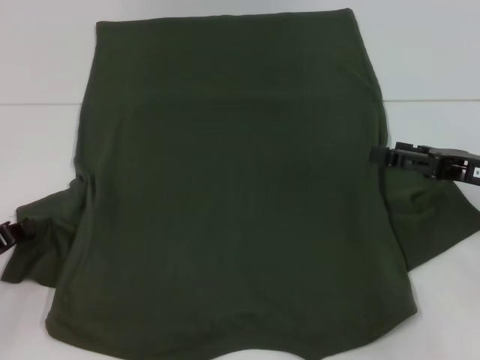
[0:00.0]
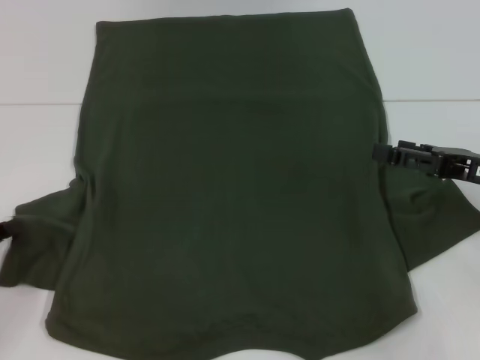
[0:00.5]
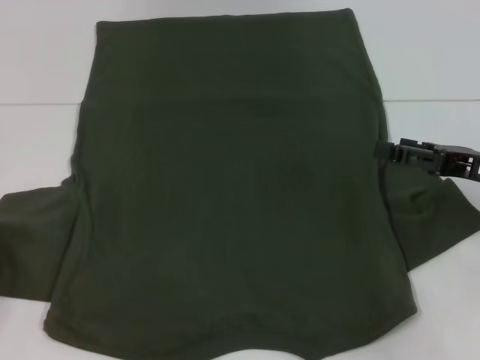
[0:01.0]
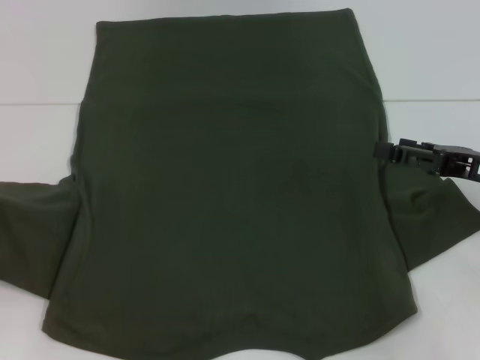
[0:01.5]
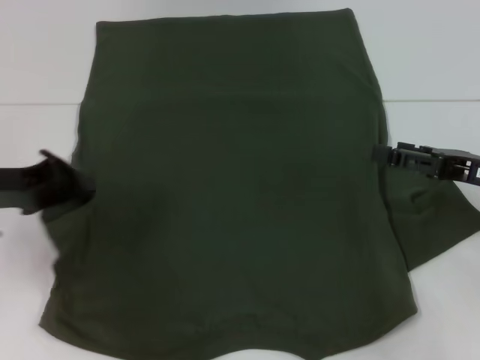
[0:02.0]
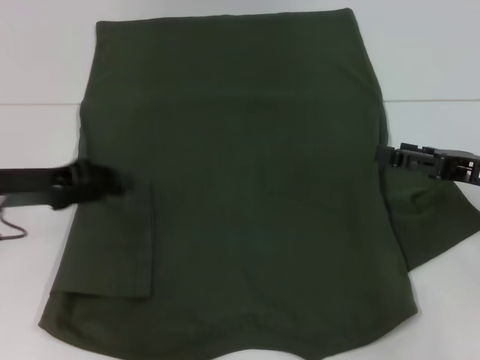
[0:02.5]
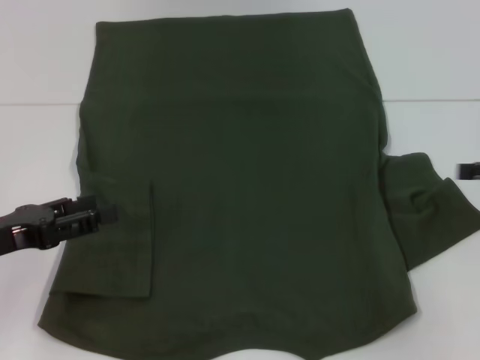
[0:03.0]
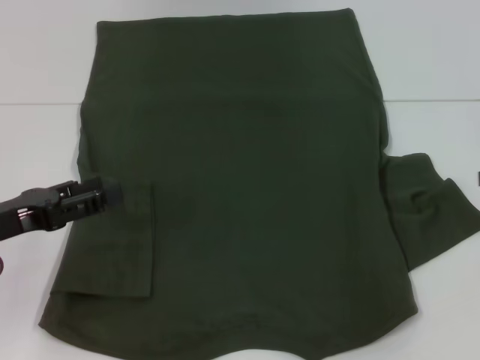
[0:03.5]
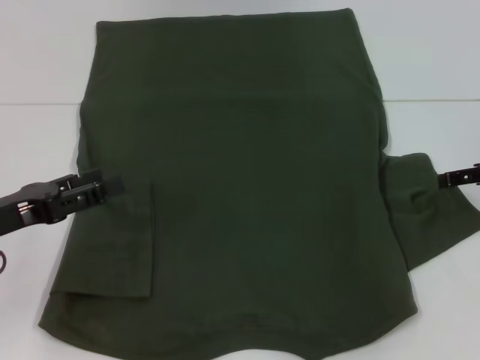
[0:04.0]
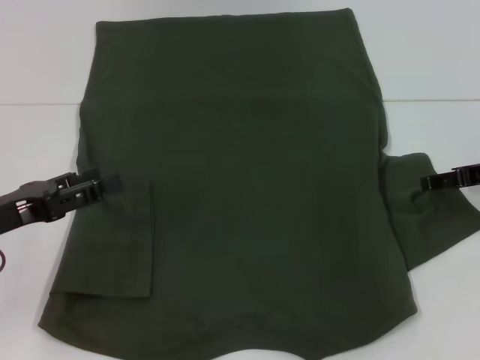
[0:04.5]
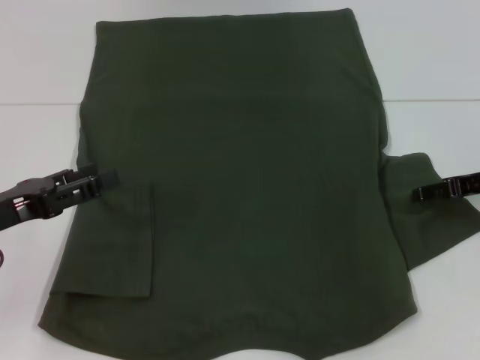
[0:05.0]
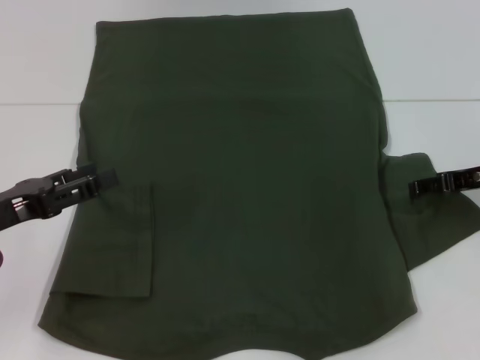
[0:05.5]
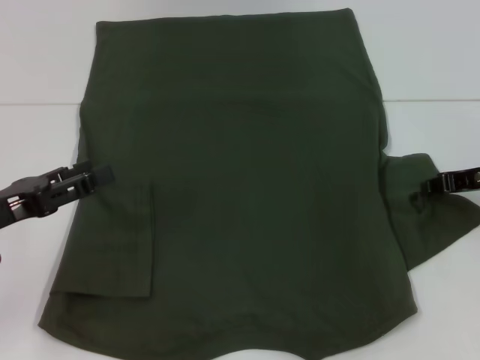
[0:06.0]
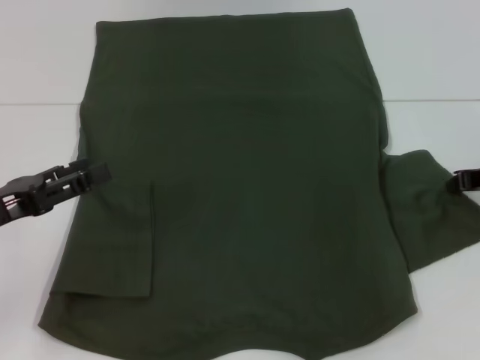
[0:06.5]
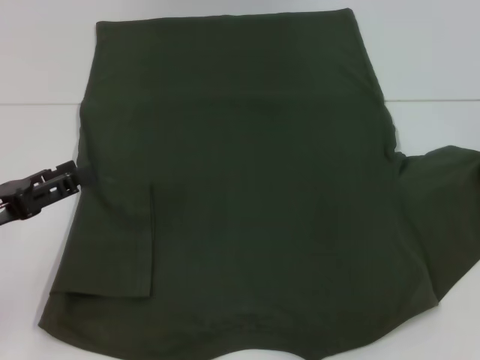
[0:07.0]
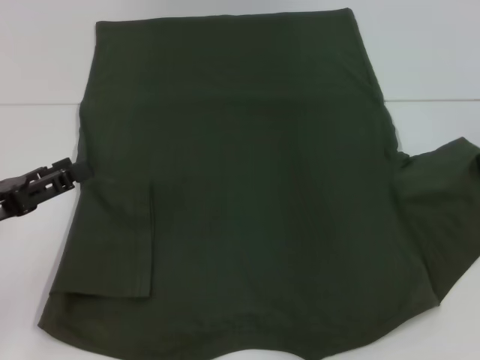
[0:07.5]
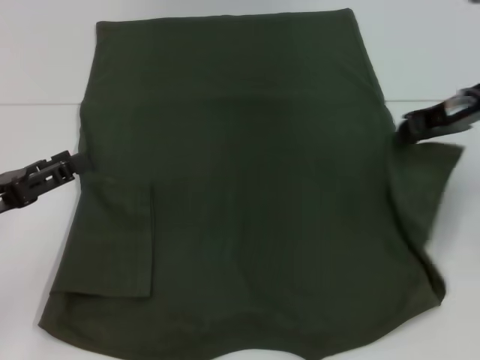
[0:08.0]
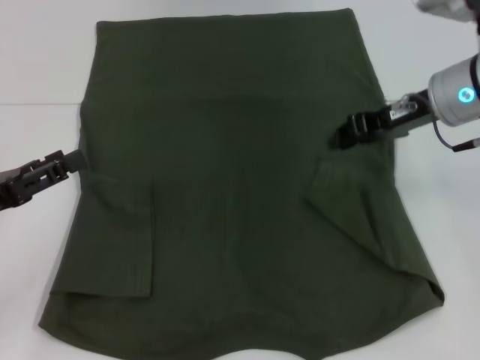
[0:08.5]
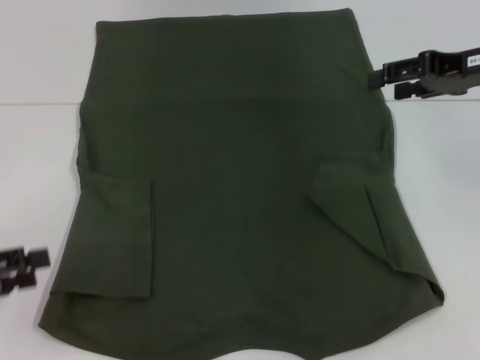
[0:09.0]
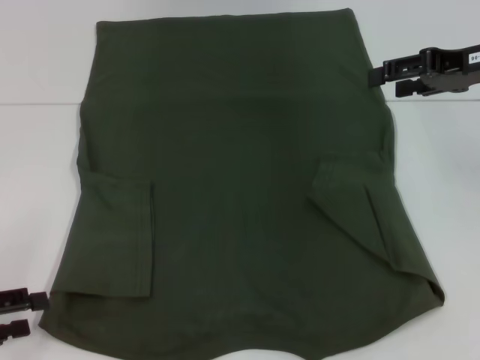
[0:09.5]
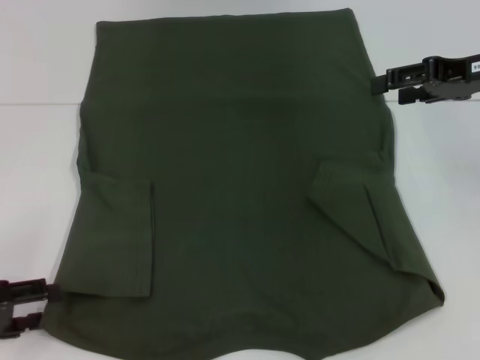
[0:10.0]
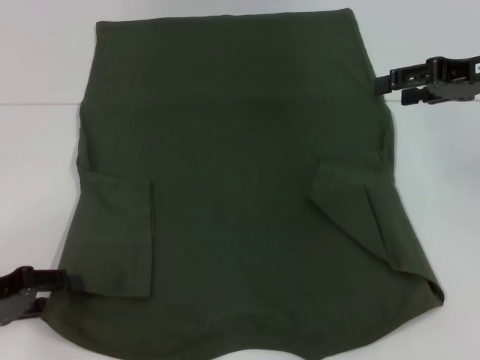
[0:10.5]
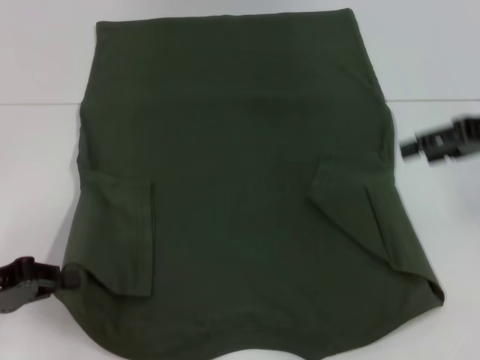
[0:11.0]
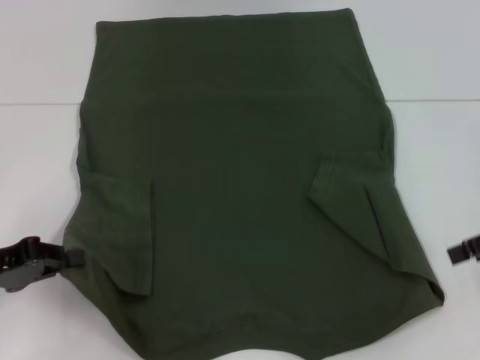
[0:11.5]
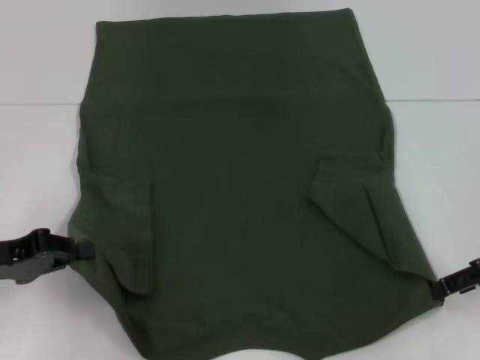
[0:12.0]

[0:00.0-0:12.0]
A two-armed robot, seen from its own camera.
Step, 0.0 to 2.0 s: Fold the bottom left sleeve with your left hand.
Step, 2.5 to 8.5 s: Fold the bottom right sleeve with your right hand.
Step, 9.0 to 11.0 s: Grab the bottom left corner with your left hand.
0.0 to 2.0 s: The left gripper heads upward and forward, covering about 10 cm.
2.0 to 4.0 s: The right gripper ends up roughly 5 cm from where it was. Meanwhile the left gripper heads backward, covering about 5 cm, and opens up.
4.0 to 6.0 s: The right gripper closes its fingers.
6.0 to 8.0 s: The right gripper is displaced upward and to the left by approximately 10 cm, and closes.
8.0 to 10.0 s: The right gripper opens its fingers, while the left gripper moves roughly 5 cm.
10.0 to 12.0 s: The right gripper is displaced downward and backward by about 15 cm. Meanwhile the left gripper changes place by roughly 5 cm, and closes.

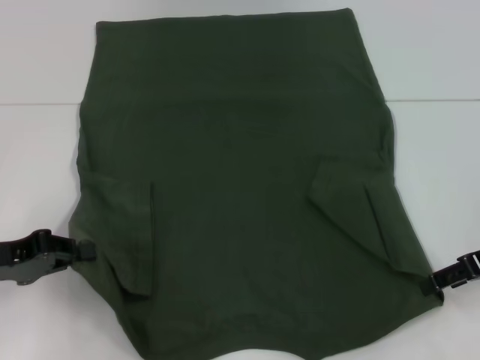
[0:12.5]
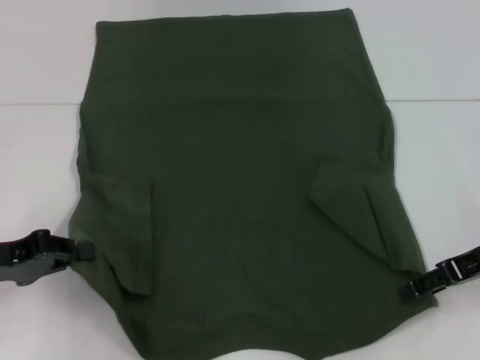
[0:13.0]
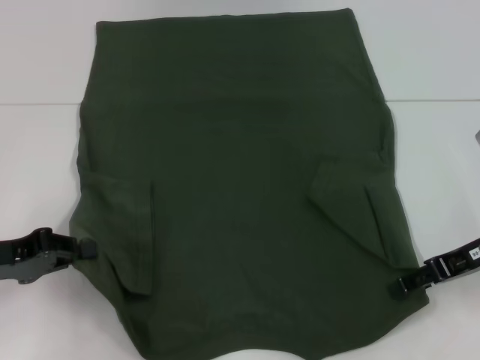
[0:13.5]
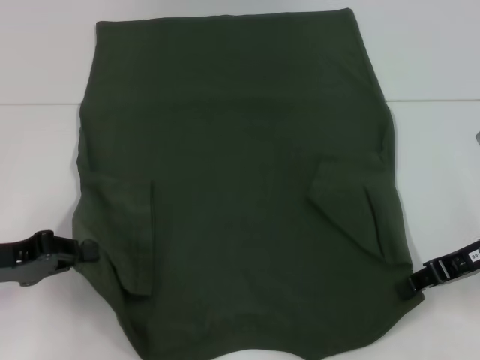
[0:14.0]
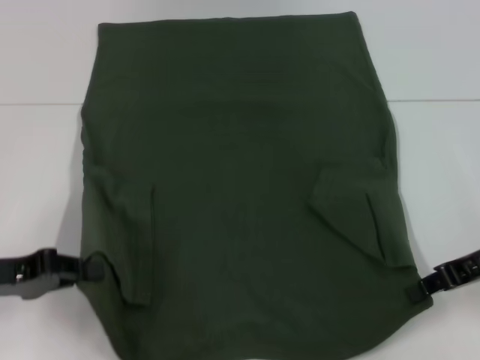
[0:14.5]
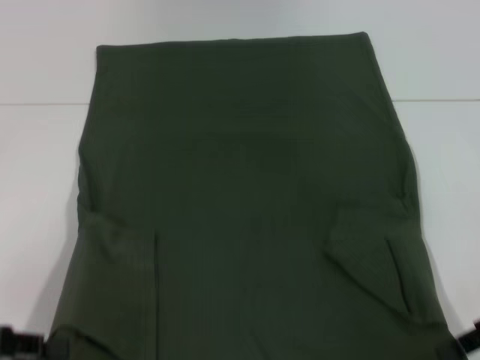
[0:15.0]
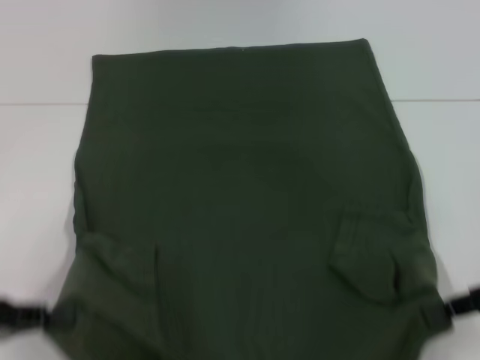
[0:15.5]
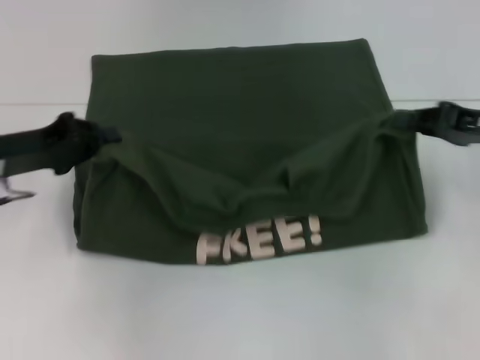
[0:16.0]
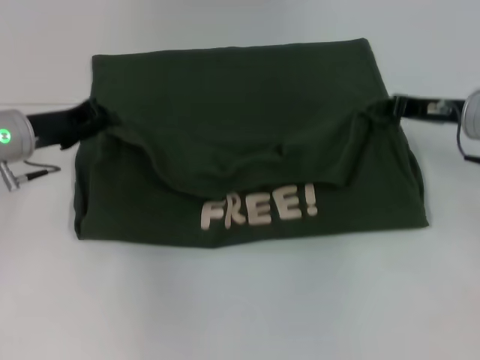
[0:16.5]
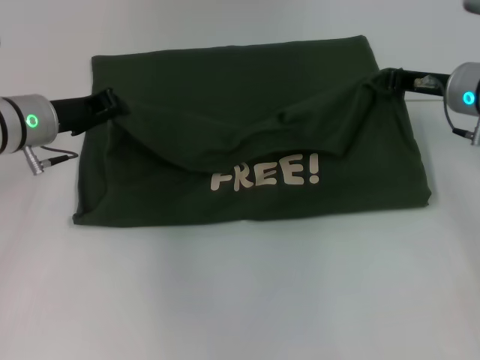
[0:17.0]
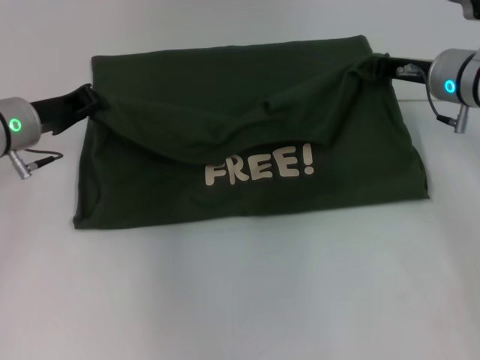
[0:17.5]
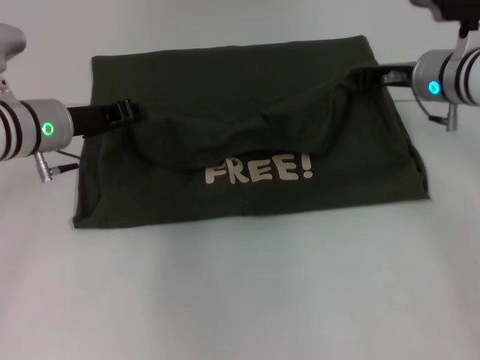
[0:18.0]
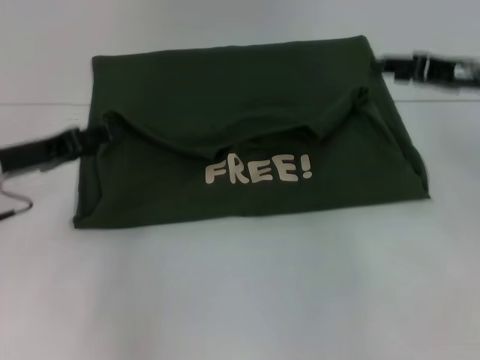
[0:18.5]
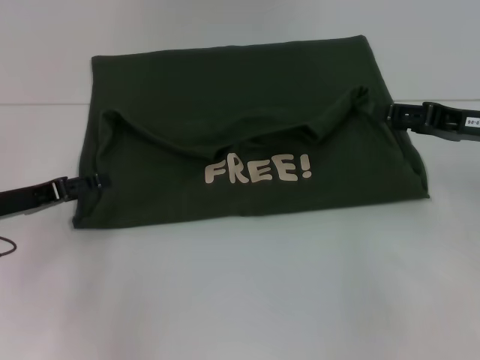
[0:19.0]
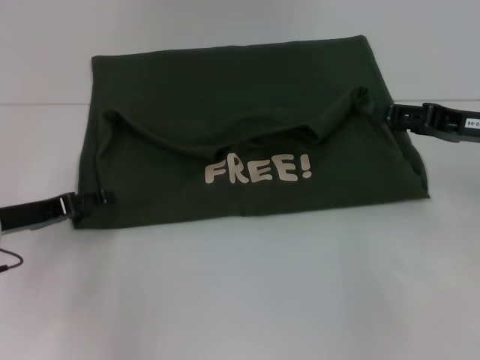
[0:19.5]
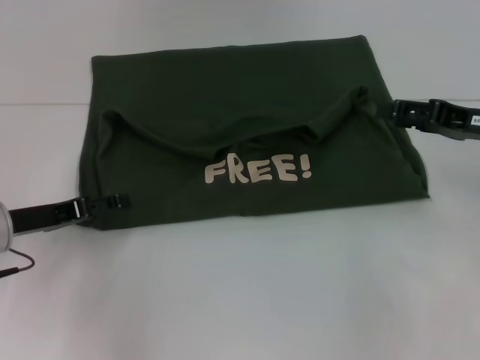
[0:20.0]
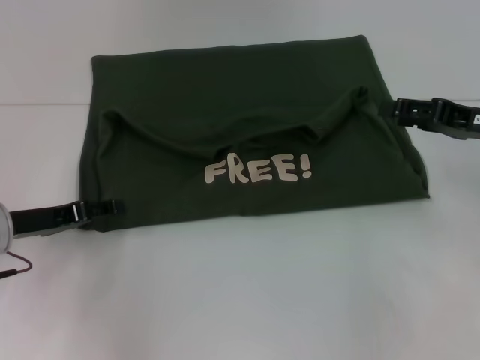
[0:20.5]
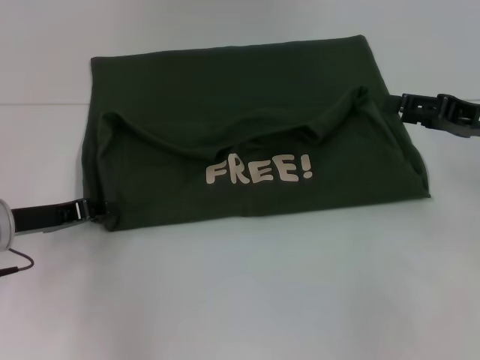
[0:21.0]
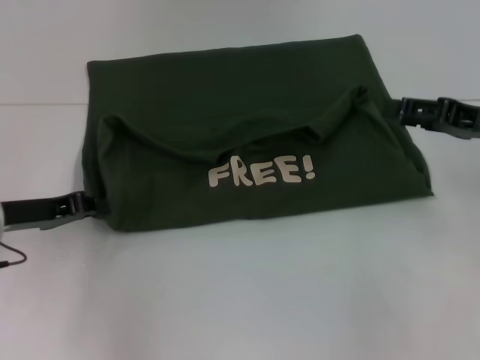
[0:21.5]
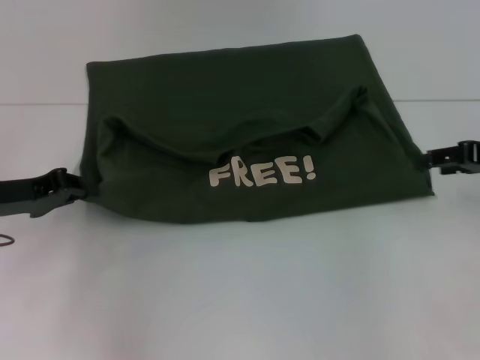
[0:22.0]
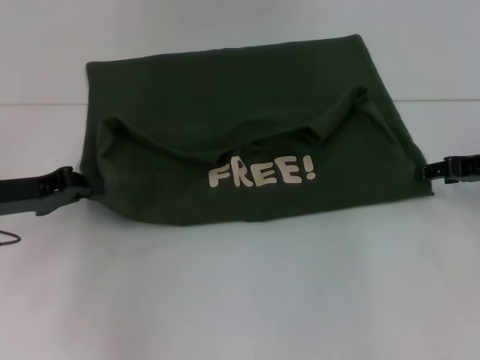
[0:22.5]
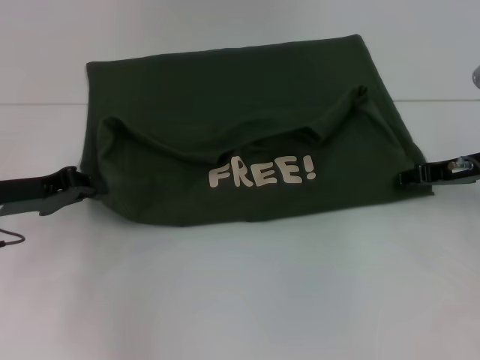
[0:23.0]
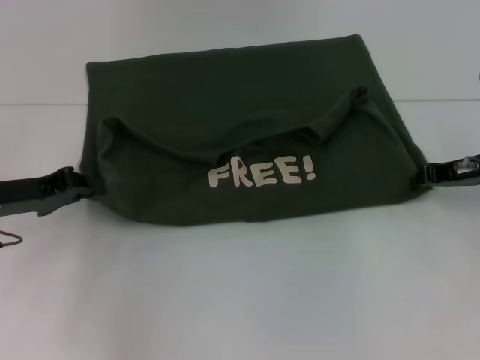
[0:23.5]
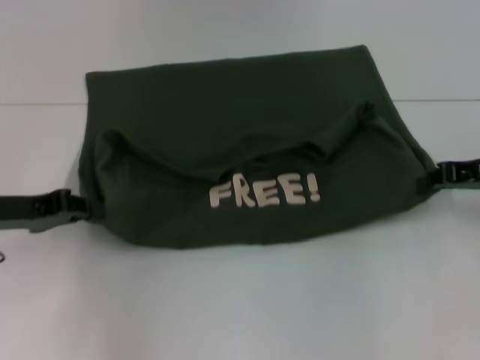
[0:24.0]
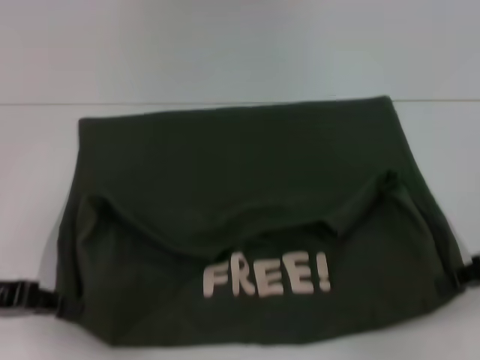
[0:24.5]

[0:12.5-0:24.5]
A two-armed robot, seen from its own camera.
Step, 14.5 to 18.0 s: Fold the clothes with your left hand.
Step, 14.5 to 18.0 s: Fold the clothes with your right hand.
12.5 to 14.5 s: The right gripper closes its fingers.
14.5 to 16.5 s: The two grippers go roughly 10 cm forward.
16.5 to 18.5 s: The left gripper shifts roughly 5 cm backward, and opens its fingers. The right gripper travels upward by about 5 cm, and opens.
18.5 to 20.5 s: The right gripper changes place by about 5 cm. Meanwhile the left gripper goes roughly 5 cm downward, and opens up.
20.5 to 22.5 s: The left gripper closes.
22.5 to 24.5 s: Both grippers move backward, roughly 10 cm. The right gripper closes its fingers.

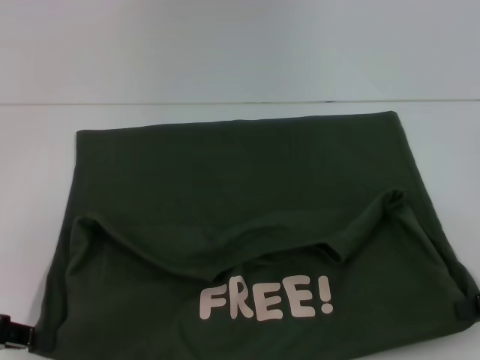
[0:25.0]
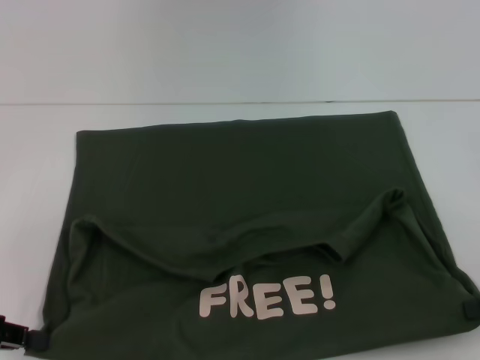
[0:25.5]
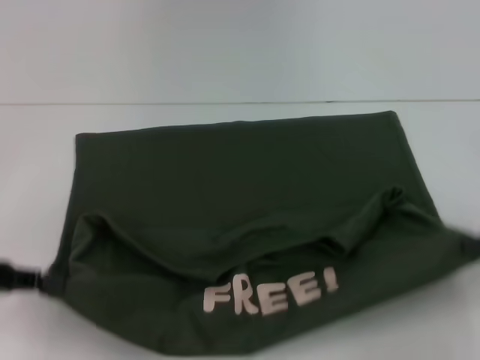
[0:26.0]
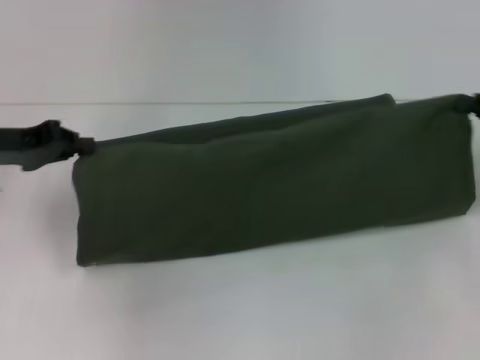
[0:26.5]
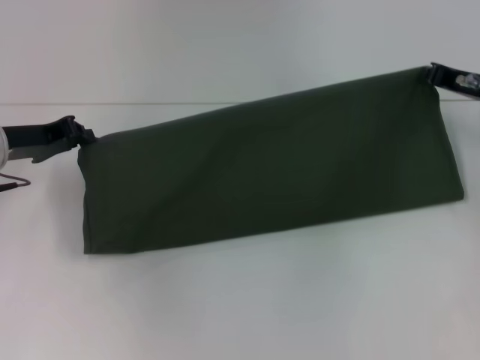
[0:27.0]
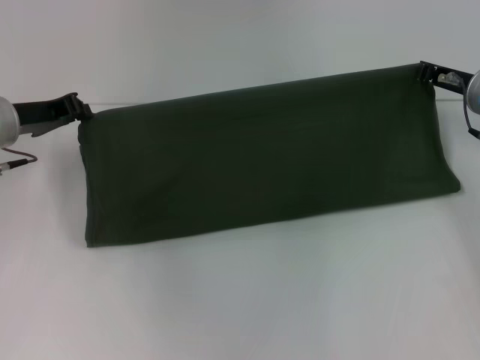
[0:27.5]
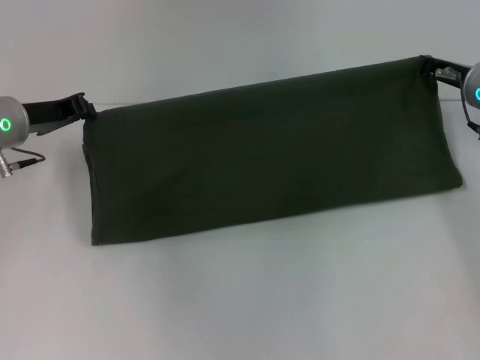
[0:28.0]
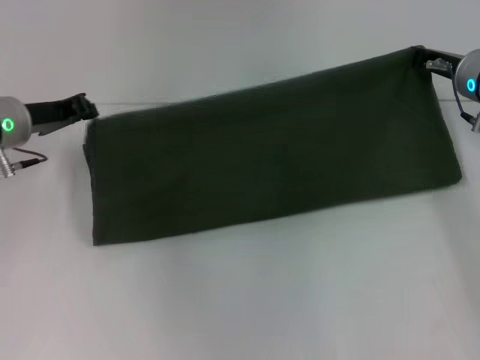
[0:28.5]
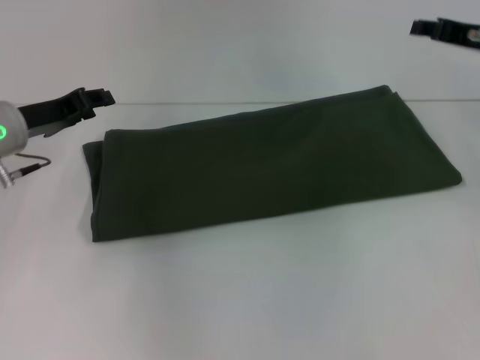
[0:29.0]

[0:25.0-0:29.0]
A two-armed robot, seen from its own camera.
Step, 26.0 to 28.5 s: Fold the clothes with your right hand.
25.0 to 27.0 s: The right gripper shifts approximately 20 cm forward and to the left. The left gripper heads forward, covering roughly 15 cm.
27.0 to 29.0 s: The right gripper shifts by approximately 5 cm, and opens its fingers.
